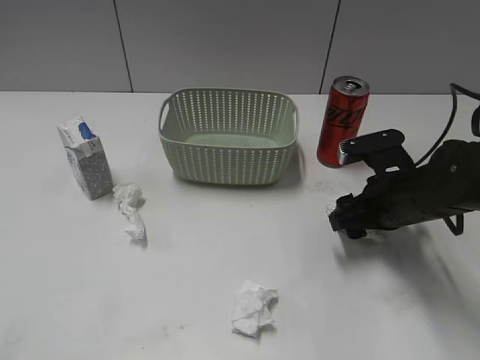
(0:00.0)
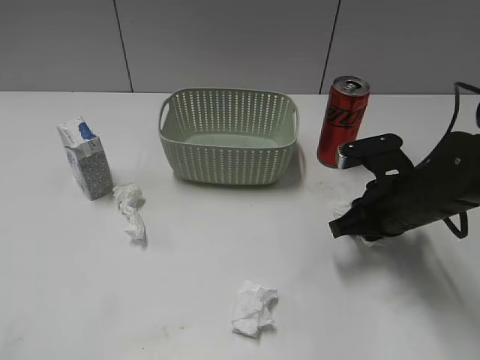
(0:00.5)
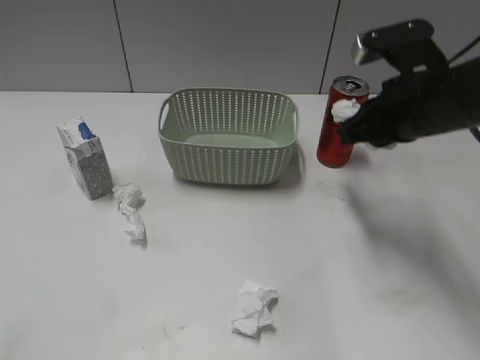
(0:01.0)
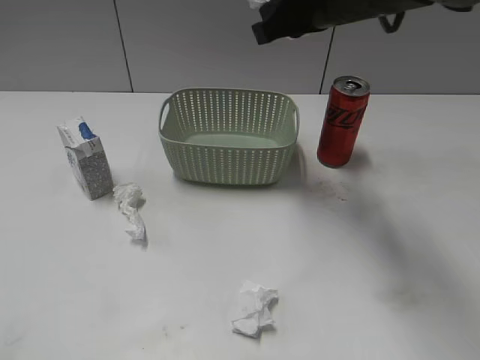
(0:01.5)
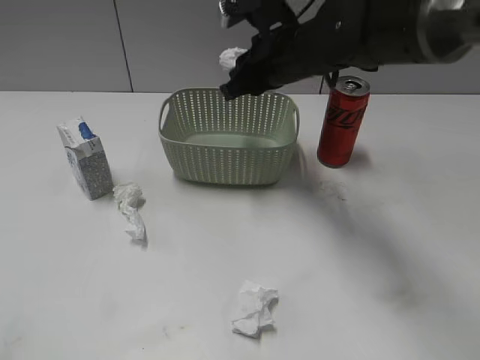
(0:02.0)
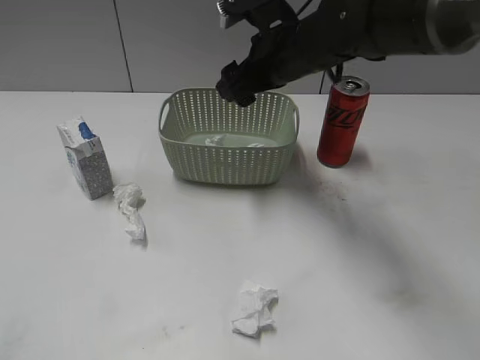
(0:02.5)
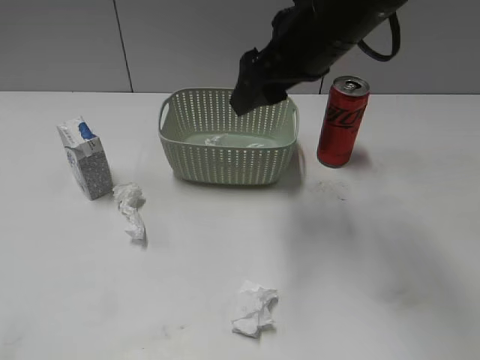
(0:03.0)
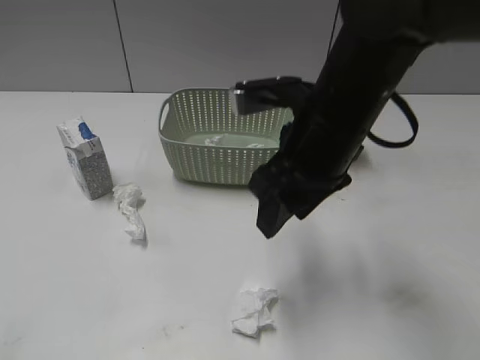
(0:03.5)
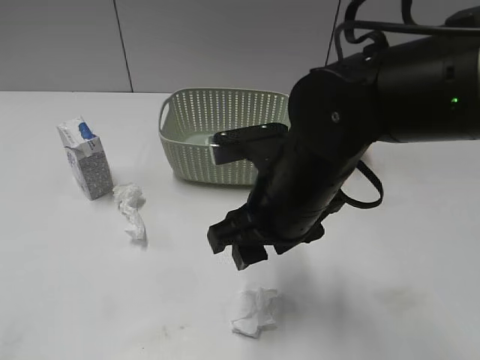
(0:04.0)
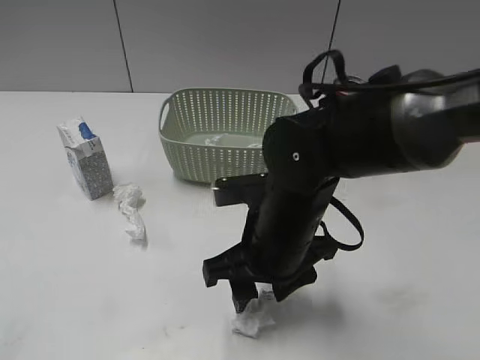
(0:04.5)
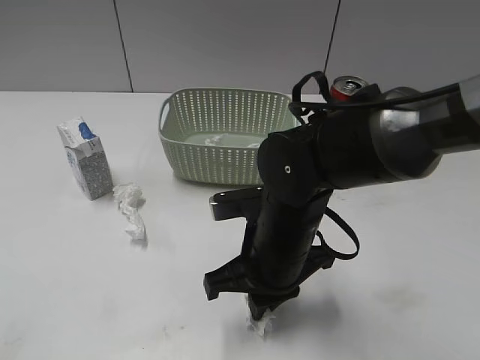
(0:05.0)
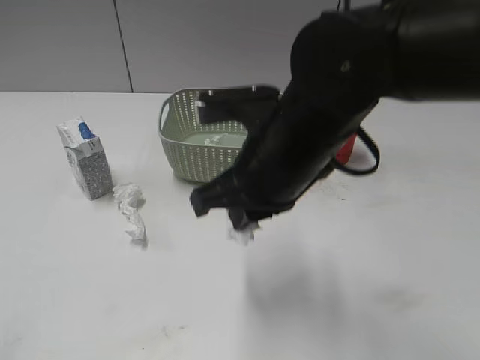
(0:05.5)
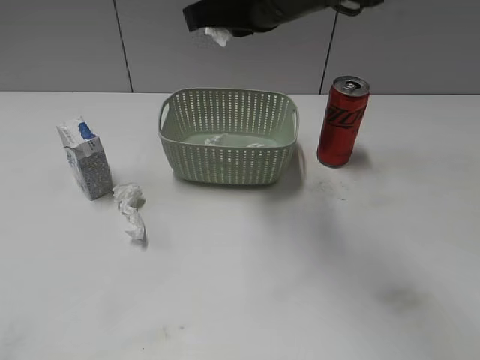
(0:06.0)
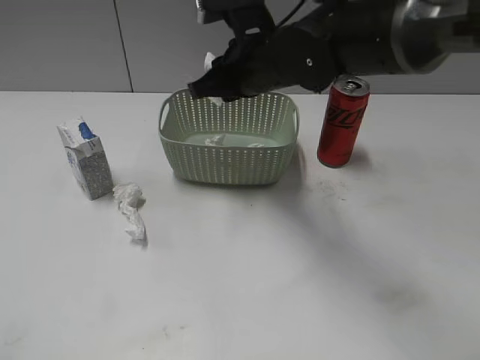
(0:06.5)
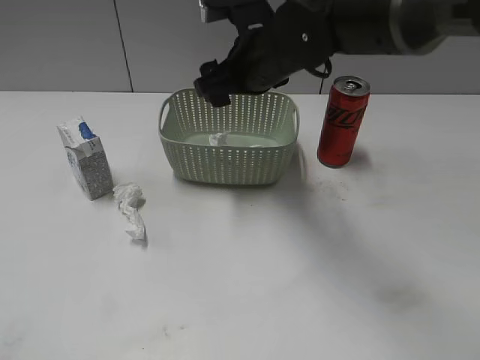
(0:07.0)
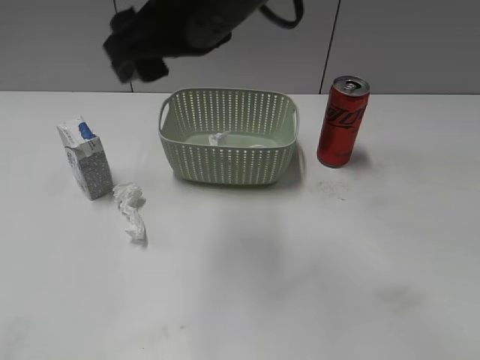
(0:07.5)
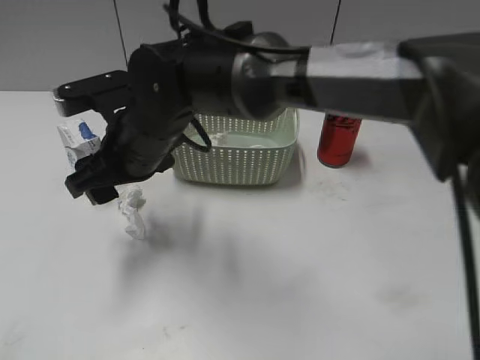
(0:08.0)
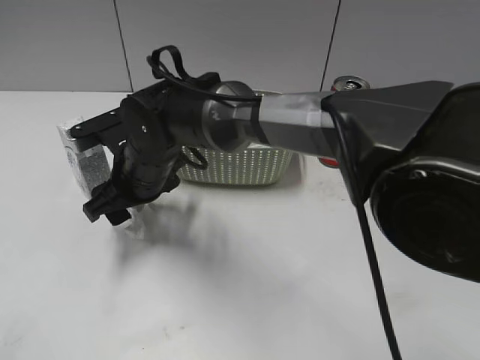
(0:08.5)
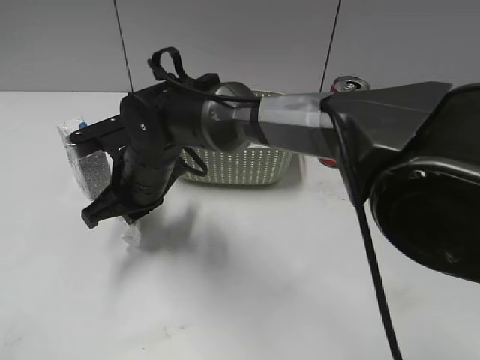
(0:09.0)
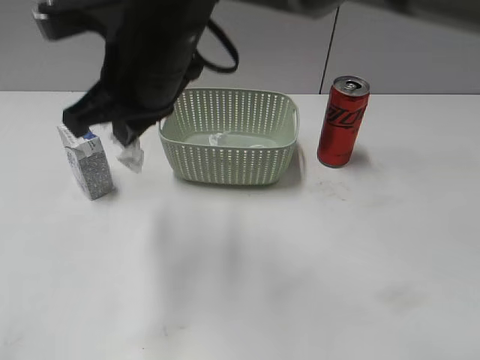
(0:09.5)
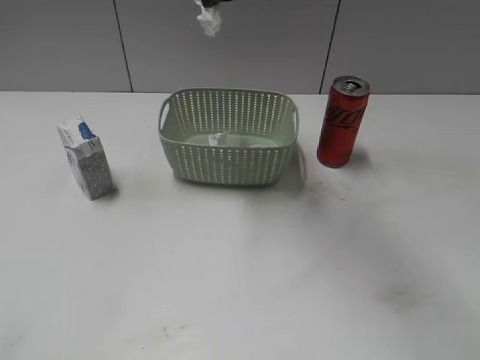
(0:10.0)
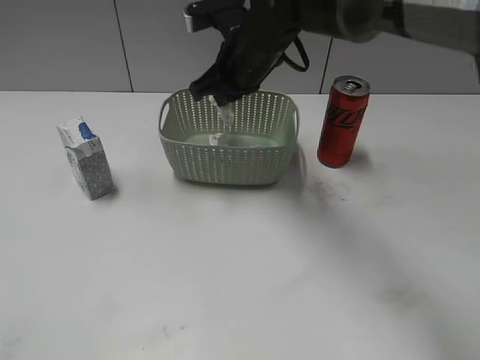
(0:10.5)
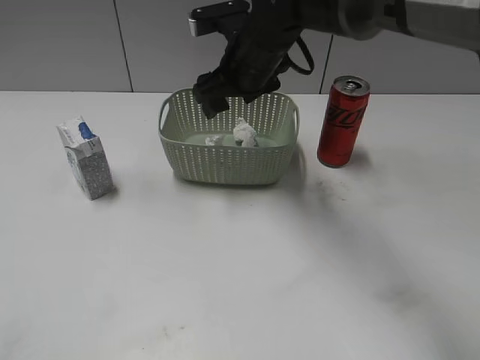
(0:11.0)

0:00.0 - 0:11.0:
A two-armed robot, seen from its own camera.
Step, 0:01.0 - 0:02.0: Place the waste paper in the basket with right gripper.
Step, 0:02.5 - 0:05.0: Grasp the waste paper with right gripper.
Step, 0:04.5 - 0:10.5: Place the waste paper in the basket with right gripper.
Step, 0:07.0 - 0:09.0: Grasp the waste paper with right gripper.
0:00.0 - 0:02.0: The right gripper travels to the left, upward and forward by approximately 20 cm, and closes its fingers.
0:02.0 - 0:03.5: The right gripper travels backward by some 15 cm.
0:03.5 - 0:05.5: The right gripper travels downward and back again, approximately 10 cm each way, and closes up.
0:05.5 - 0:07.5: The right gripper goes roughly 10 cm upward and to the left, travels forward and back again, about 15 cm each way, and opens its fingers.
0:07.5 - 0:09.0: The right gripper heads downward and to the left, covering approximately 20 cm, and closes up.
0:09.0 - 0:11.0: The right gripper goes about 20 cm to the right, forward and upward, and opens its fingers.

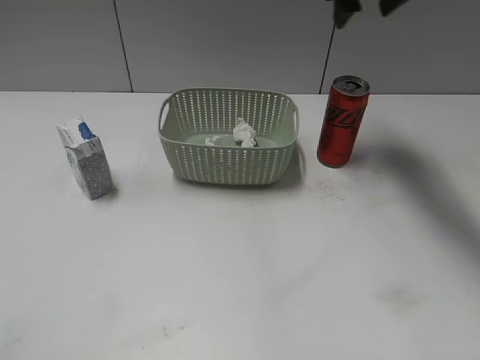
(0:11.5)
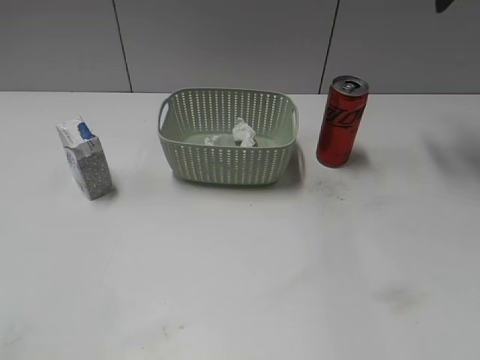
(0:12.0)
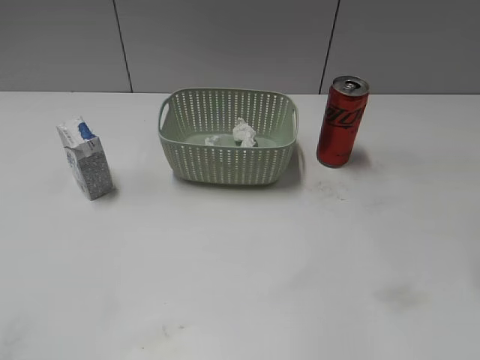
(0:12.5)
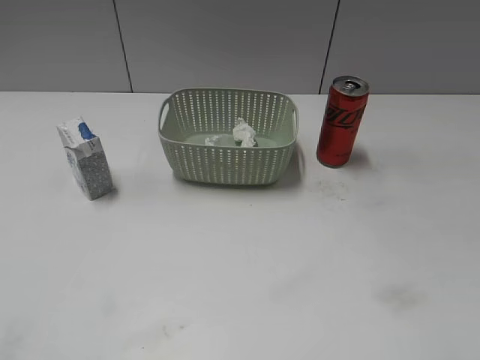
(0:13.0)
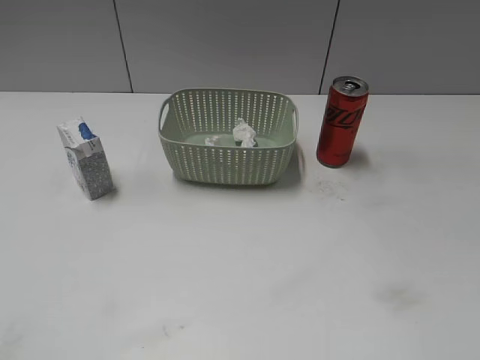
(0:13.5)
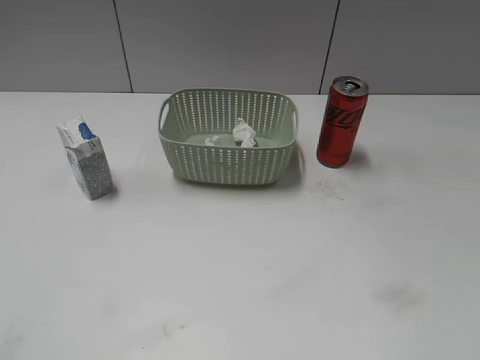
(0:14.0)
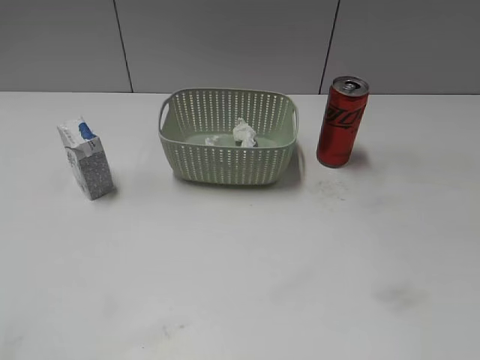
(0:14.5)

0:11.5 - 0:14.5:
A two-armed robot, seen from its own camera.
0:11.5 - 0:13.0: The right gripper moves backward, some 40 cm.

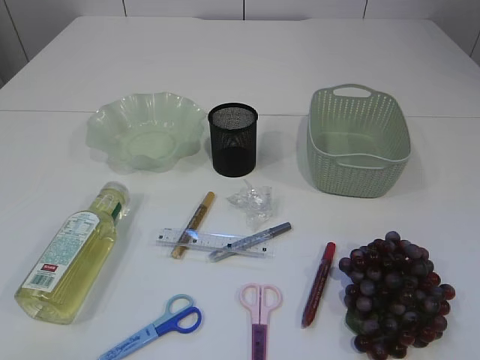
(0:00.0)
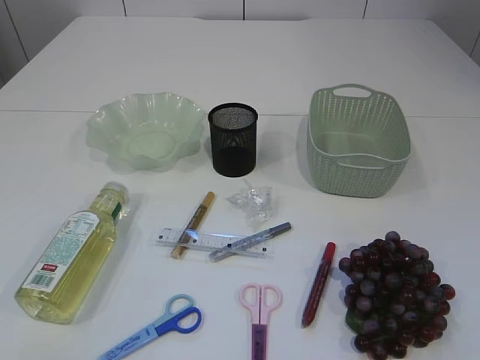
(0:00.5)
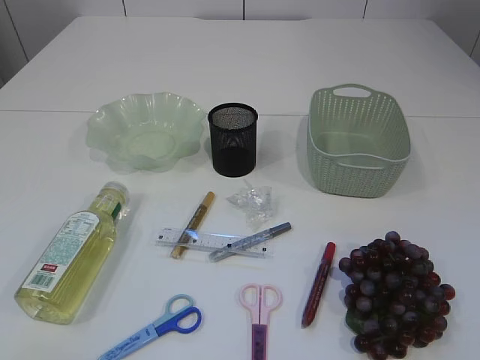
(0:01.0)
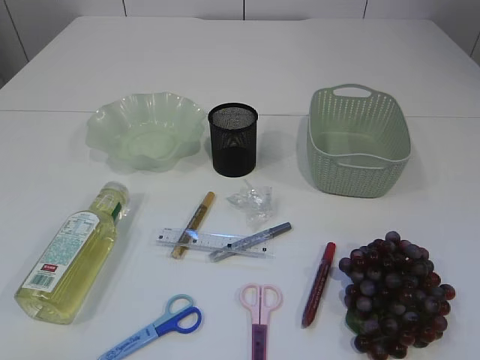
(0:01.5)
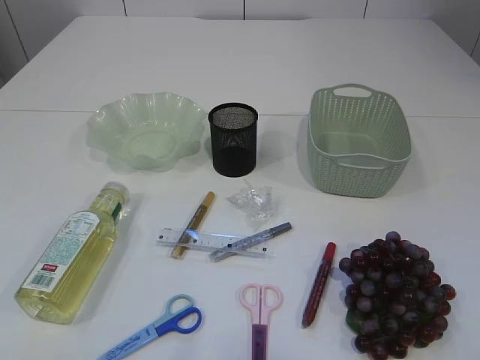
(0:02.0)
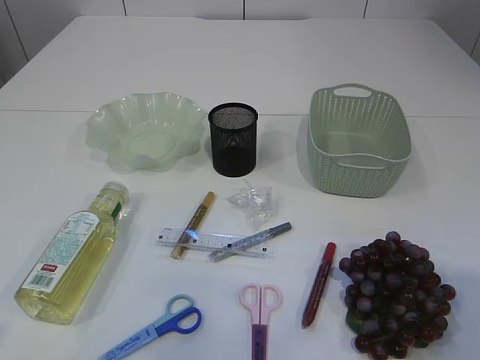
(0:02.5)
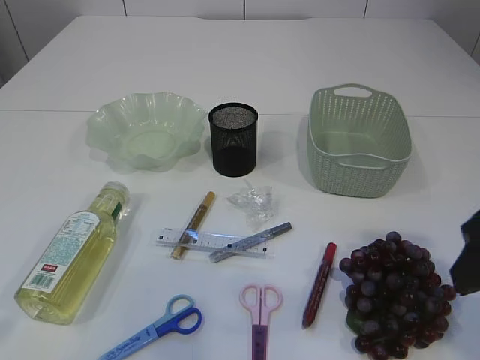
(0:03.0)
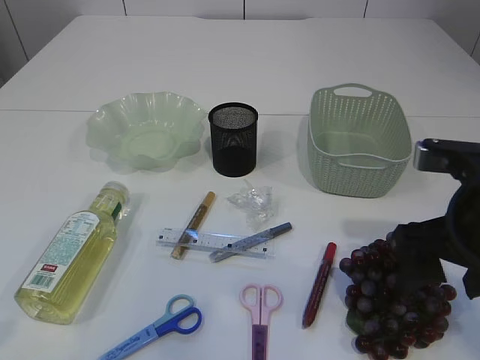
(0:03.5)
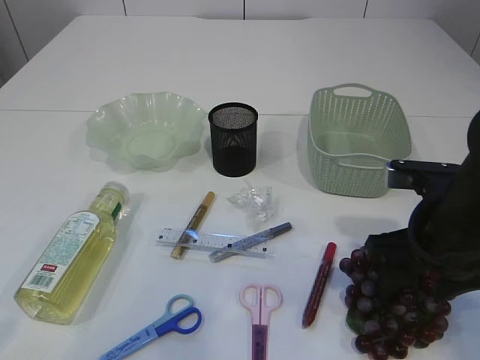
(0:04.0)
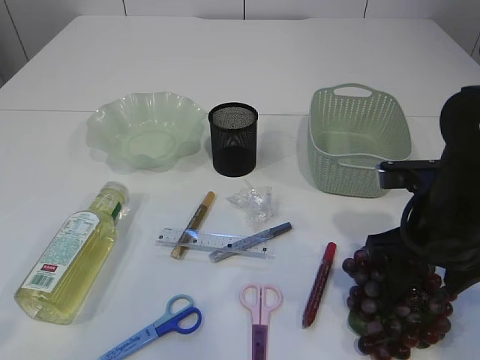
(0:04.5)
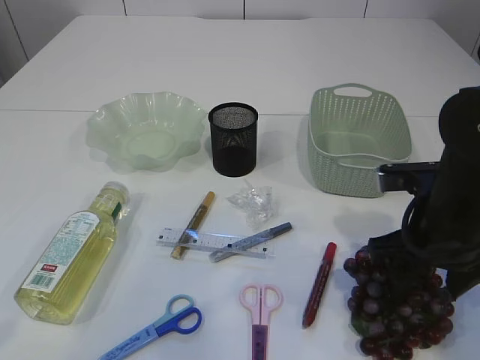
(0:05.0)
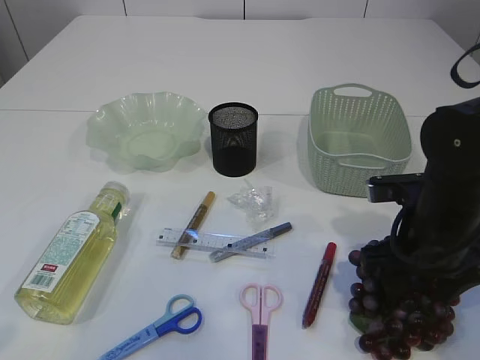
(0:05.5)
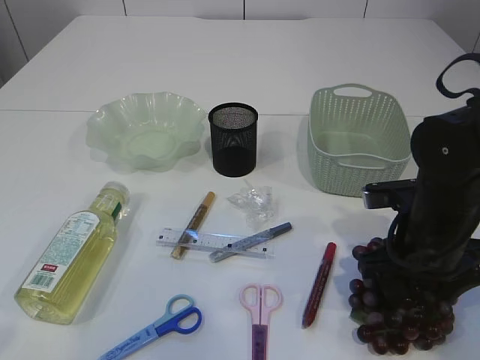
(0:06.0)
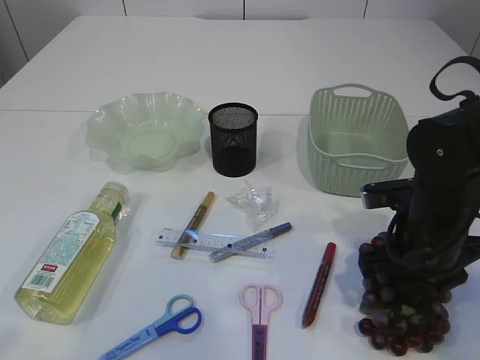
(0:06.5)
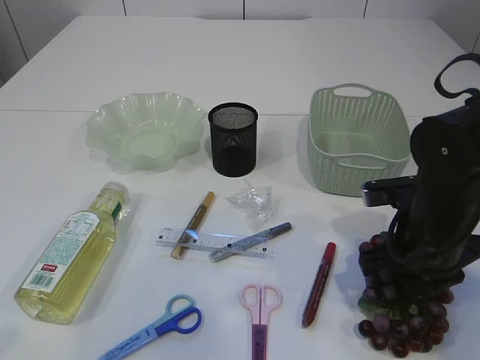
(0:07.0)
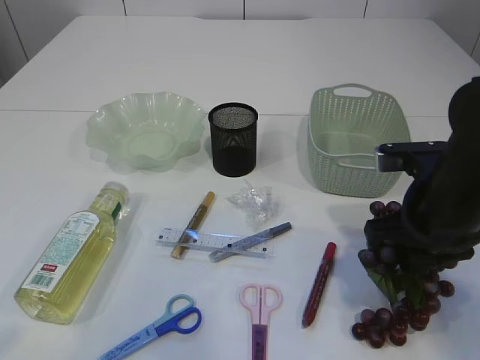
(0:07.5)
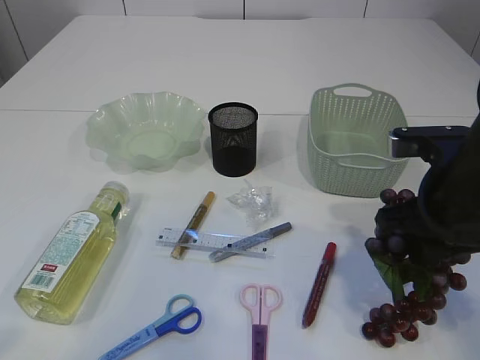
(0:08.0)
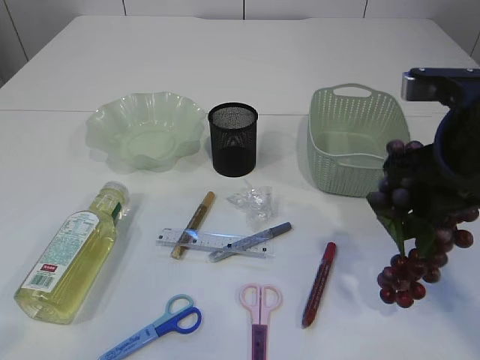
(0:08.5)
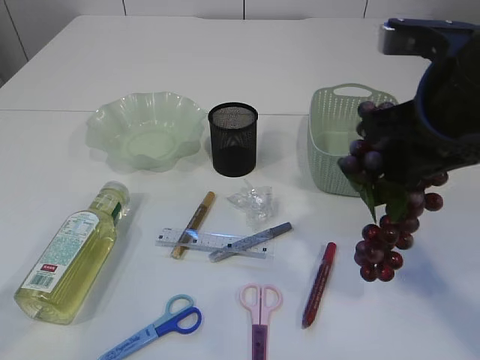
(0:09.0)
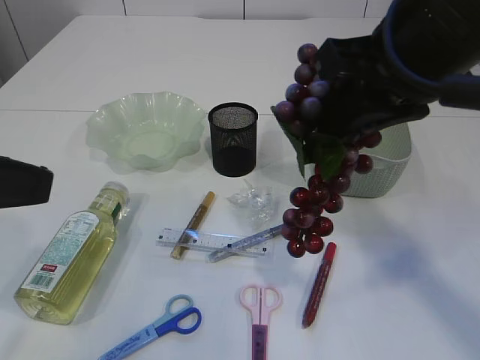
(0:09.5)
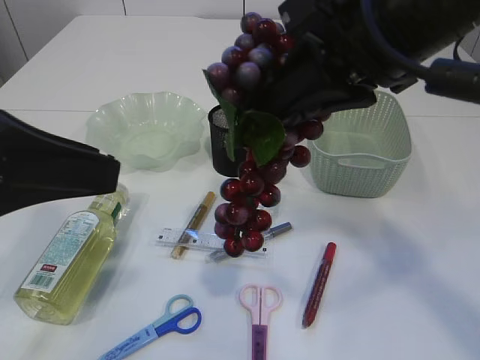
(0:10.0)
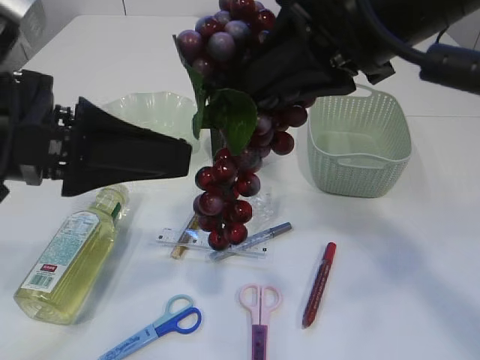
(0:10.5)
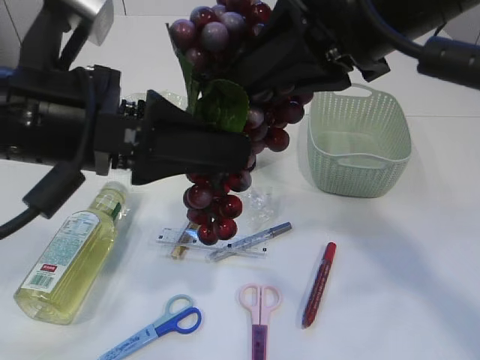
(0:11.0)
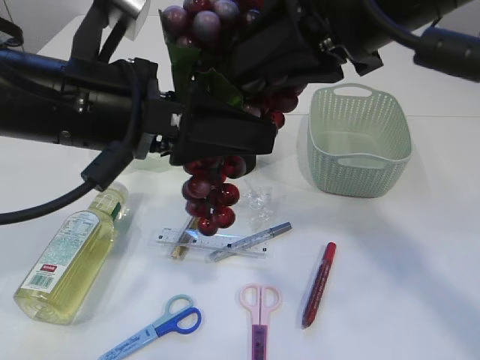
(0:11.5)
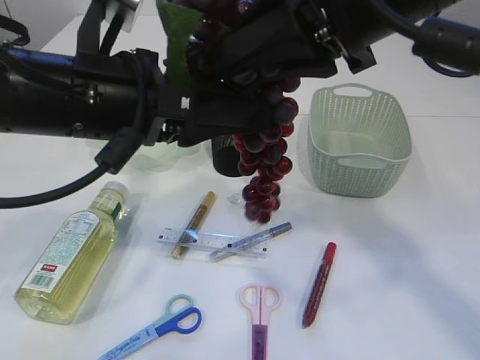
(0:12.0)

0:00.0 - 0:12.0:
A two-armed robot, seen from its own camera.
Step, 0:00.0 - 0:08.5: Pick up the grapes.
0:02.0 - 0:04.0: The right gripper travels forward and downward by about 25 cm.
0:04.0 - 0:06.0: The grippers stay close to where they were, moving slightly.
0:06.0 - 0:08.0: The right gripper heads upward, covering roughly 5 cm, and closes its fingers.
0:08.0 - 0:10.0: The right gripper travels upward and to the left by roughly 20 cm; the left gripper moves forward and to the right, approximately 15 cm.
0:10.0 - 0:12.0: The left gripper shifts some 10 cm to the right and forward.
